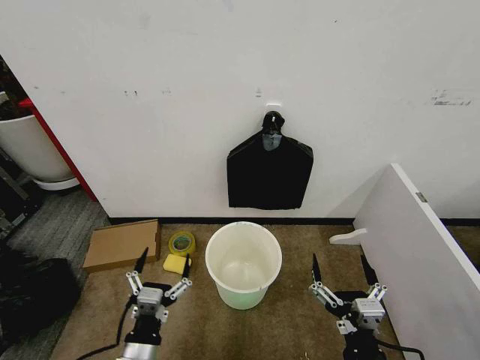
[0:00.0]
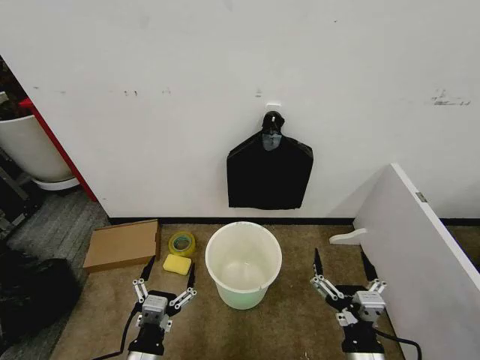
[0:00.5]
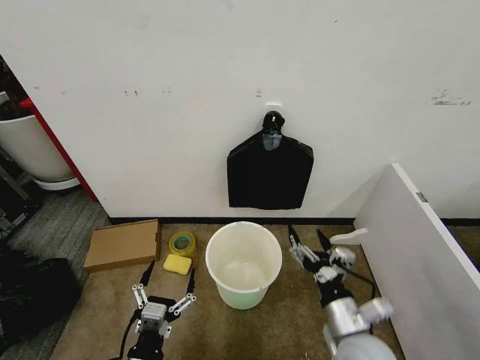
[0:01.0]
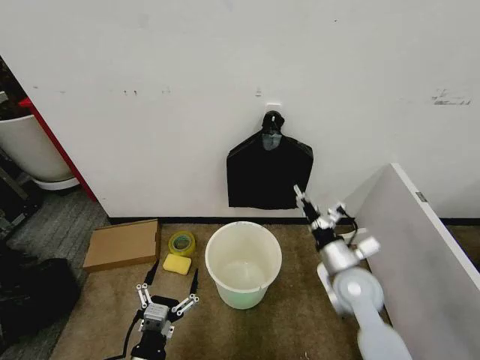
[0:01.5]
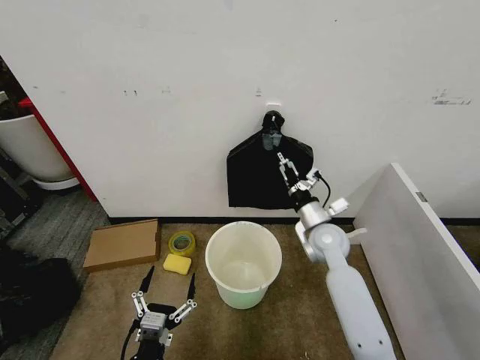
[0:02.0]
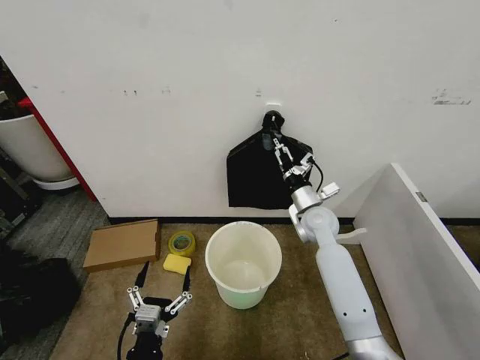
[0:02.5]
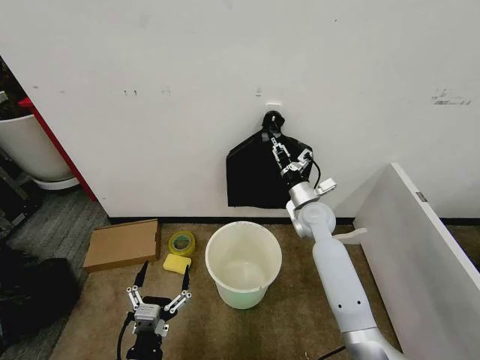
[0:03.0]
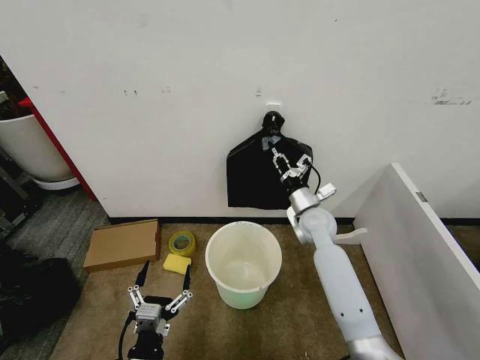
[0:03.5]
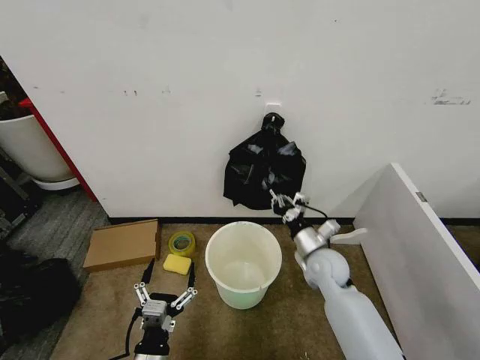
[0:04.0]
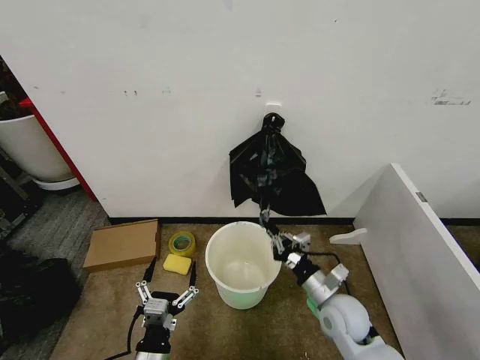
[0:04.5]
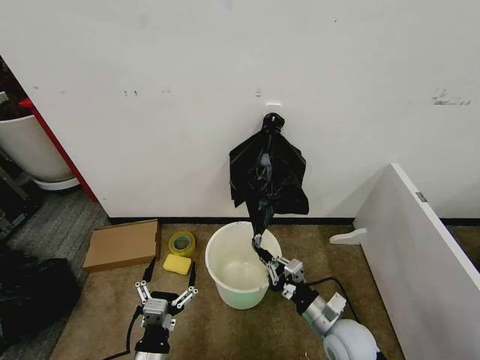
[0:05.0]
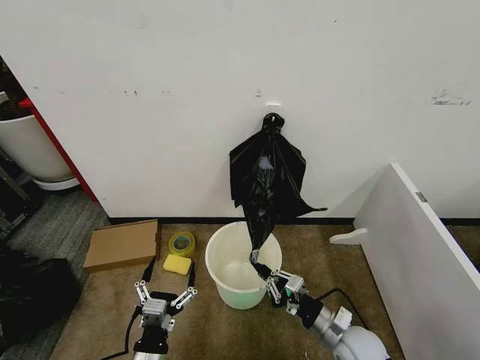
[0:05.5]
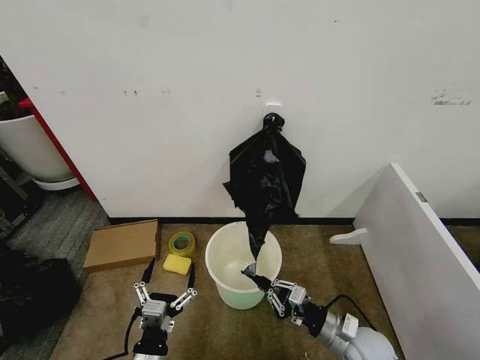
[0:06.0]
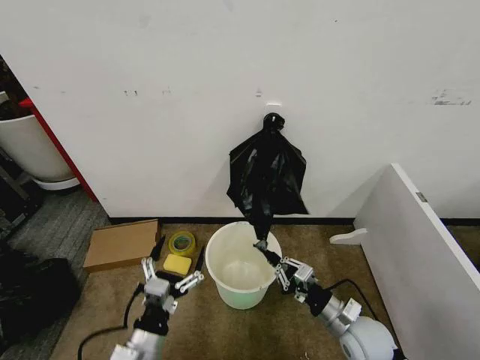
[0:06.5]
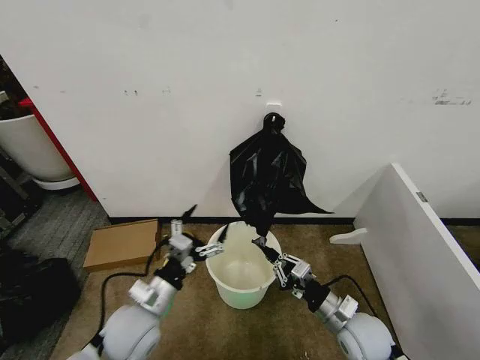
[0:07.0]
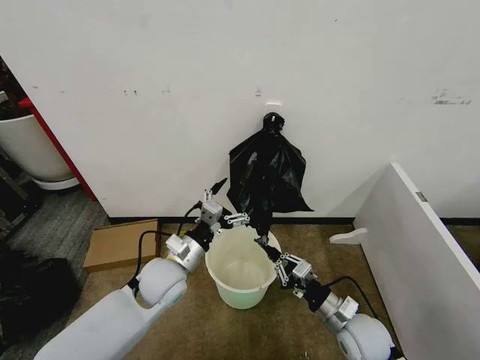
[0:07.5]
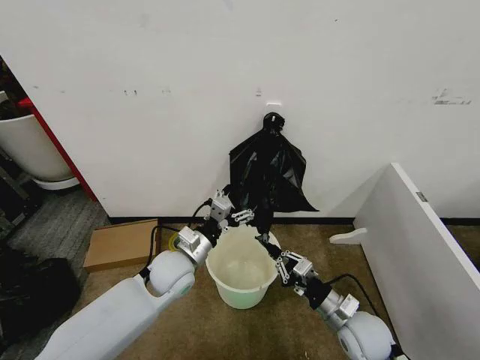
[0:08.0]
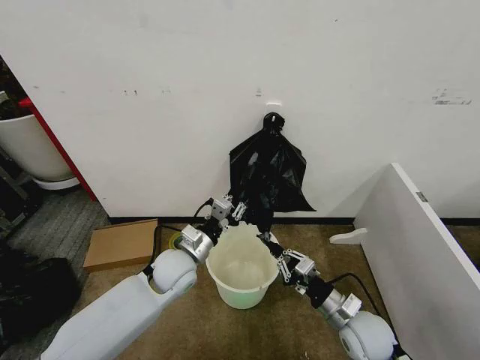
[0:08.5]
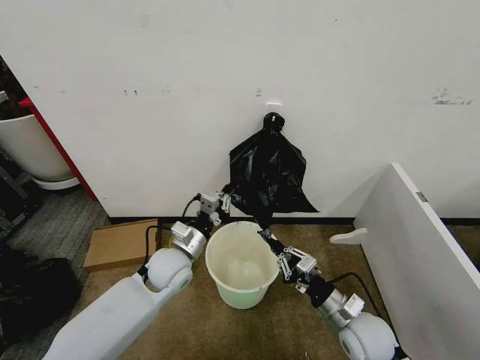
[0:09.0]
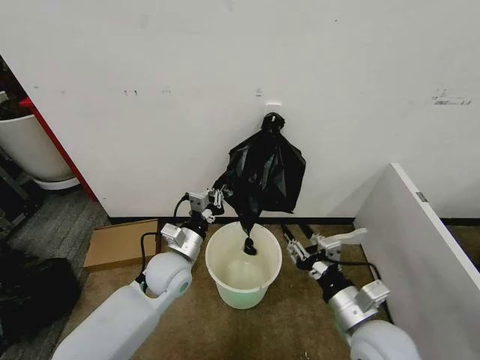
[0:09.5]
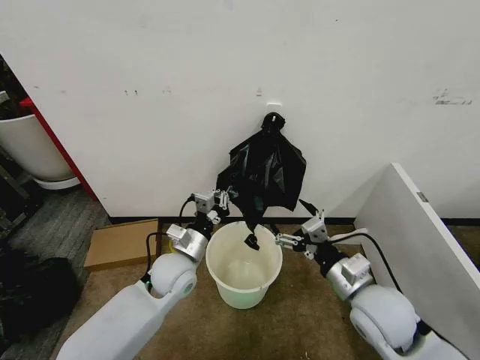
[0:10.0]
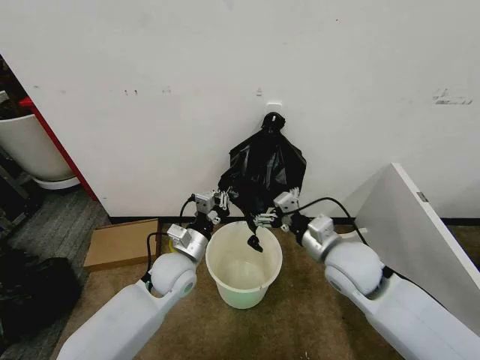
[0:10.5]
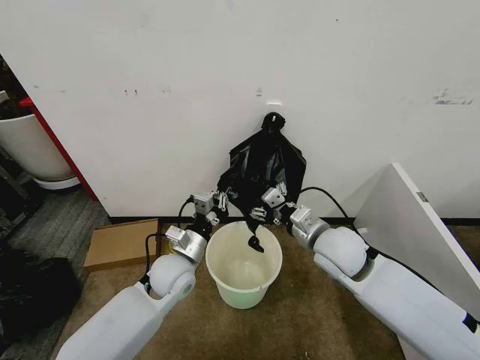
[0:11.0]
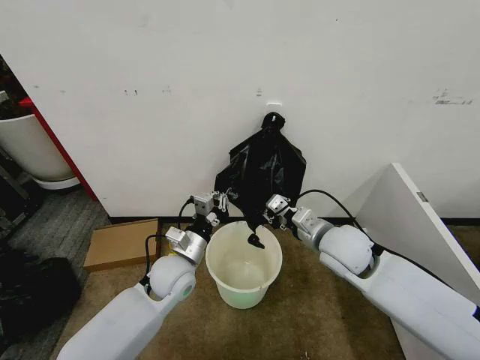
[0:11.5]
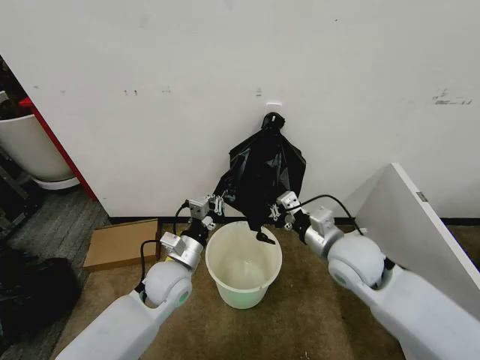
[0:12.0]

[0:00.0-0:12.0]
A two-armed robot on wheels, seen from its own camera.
Task of the whole recording: Place the garbage bag over the trash bin.
0:02.0 to 0:04.0: The right gripper moves downward, about 5 cm, and closes up.
0:04.0 to 0:06.0: The right gripper moves backward, roughly 15 cm.
0:06.0 to 0:08.0: The left gripper is displaced forward by approximately 25 cm.
0:08.0 to 0:10.0: The right gripper shifts roughly 10 cm upward, and opens, while the left gripper closes its fingers.
0:10.0 to 0:12.0: The right gripper is displaced forward by approximately 10 cm, and closes up.

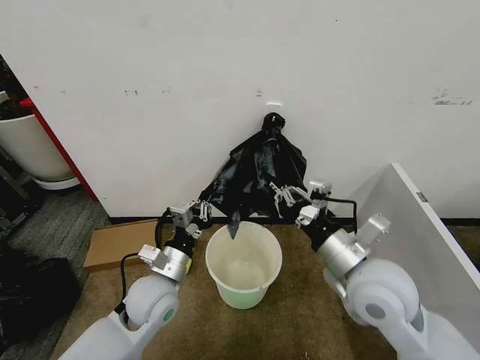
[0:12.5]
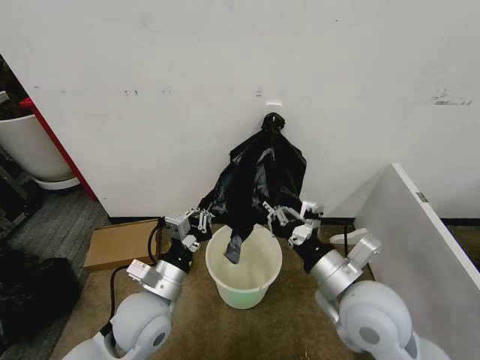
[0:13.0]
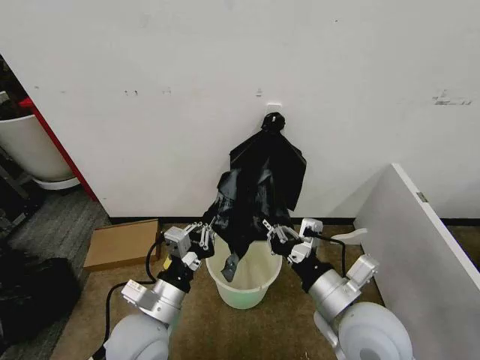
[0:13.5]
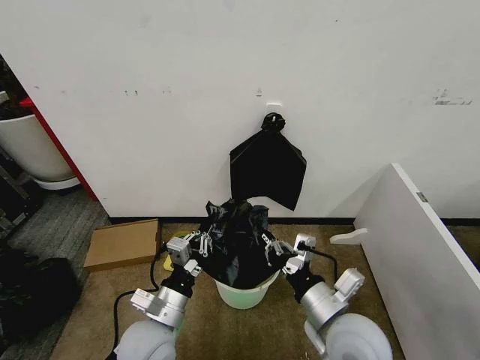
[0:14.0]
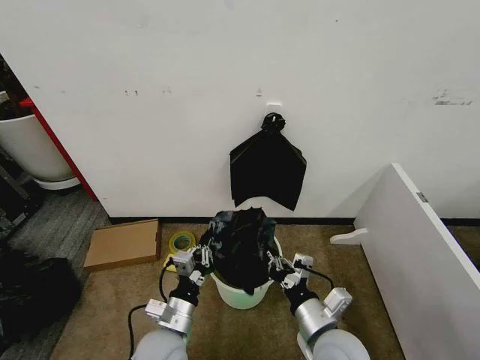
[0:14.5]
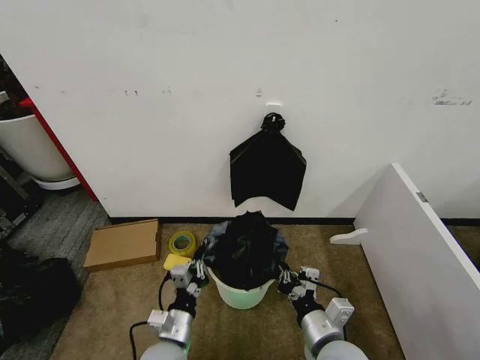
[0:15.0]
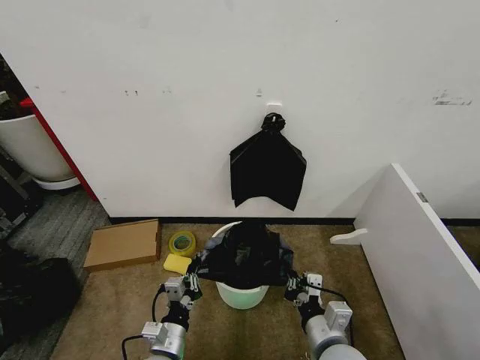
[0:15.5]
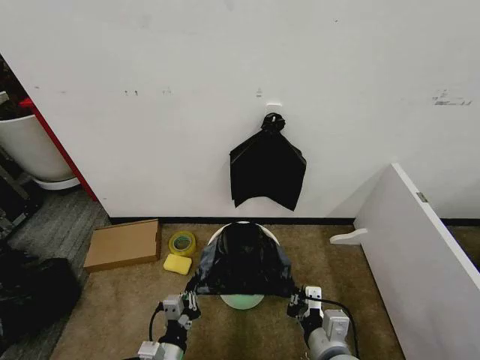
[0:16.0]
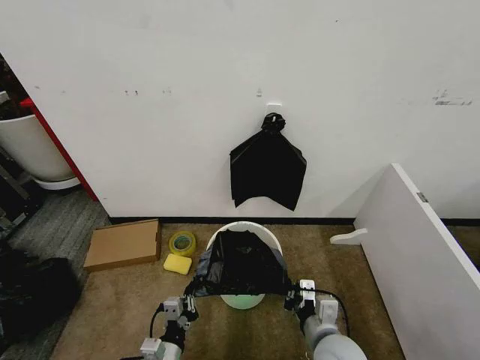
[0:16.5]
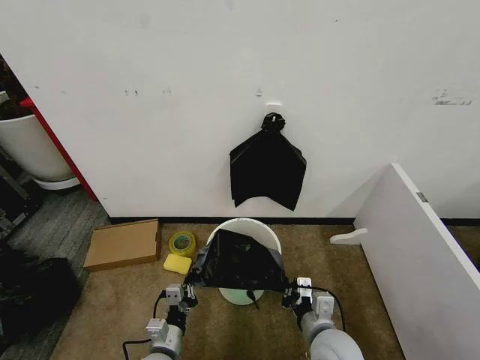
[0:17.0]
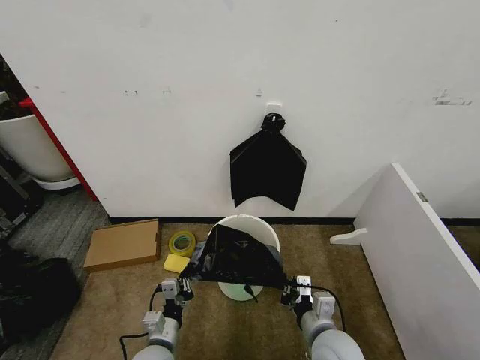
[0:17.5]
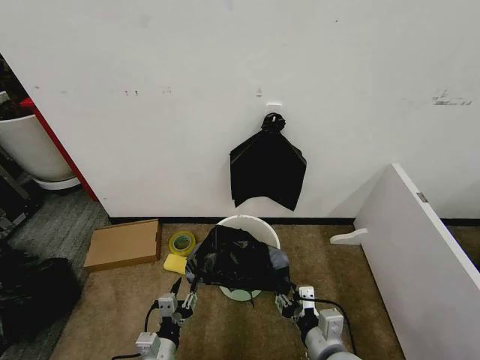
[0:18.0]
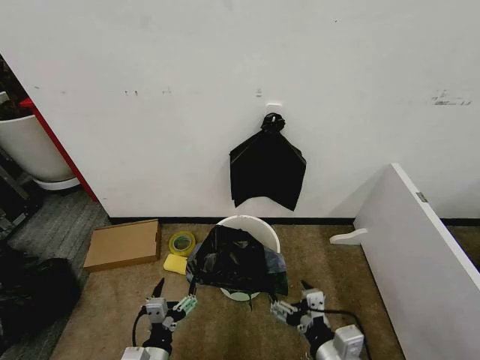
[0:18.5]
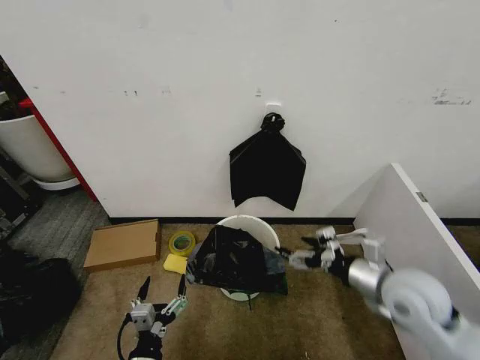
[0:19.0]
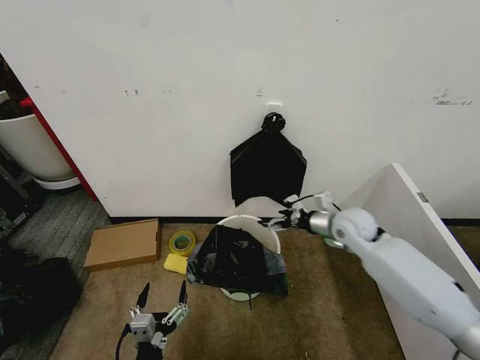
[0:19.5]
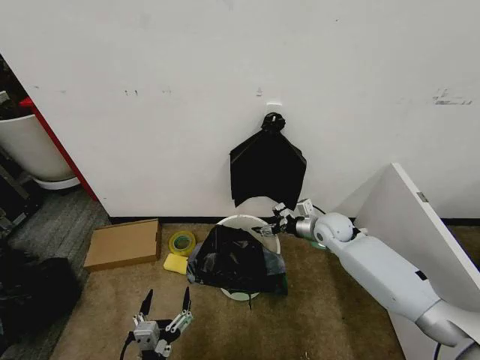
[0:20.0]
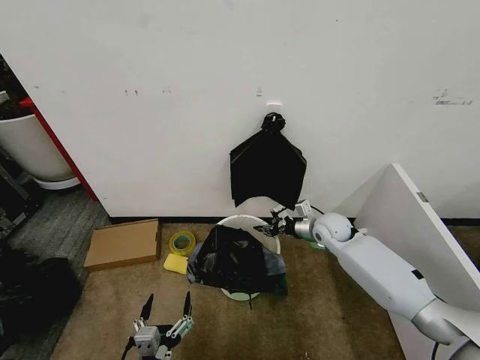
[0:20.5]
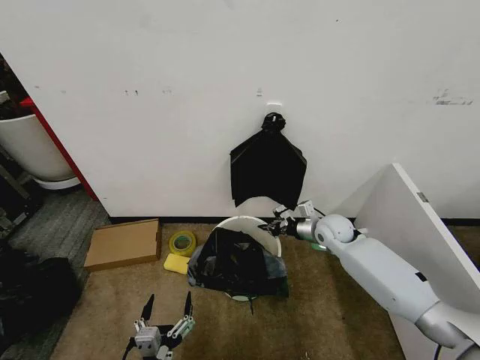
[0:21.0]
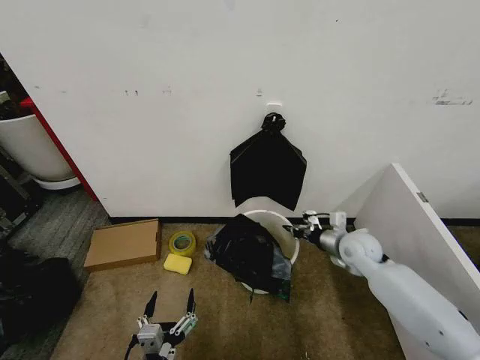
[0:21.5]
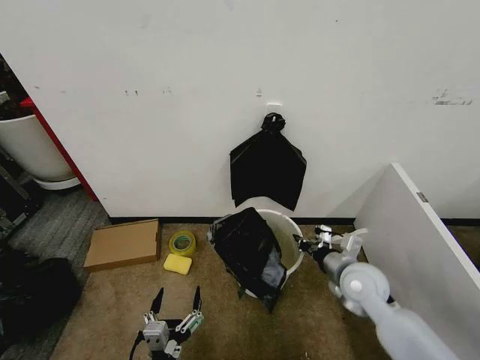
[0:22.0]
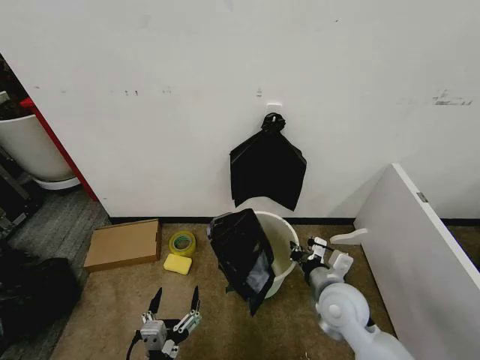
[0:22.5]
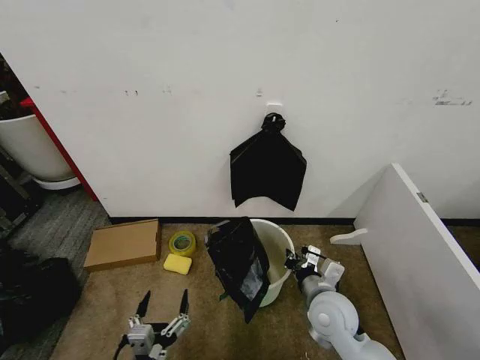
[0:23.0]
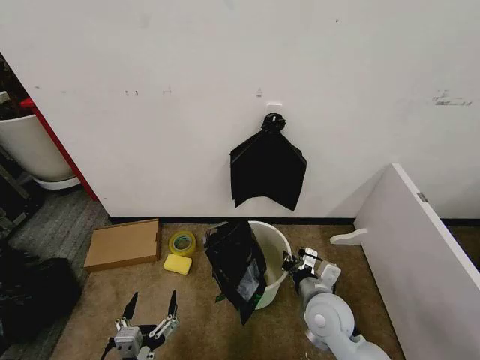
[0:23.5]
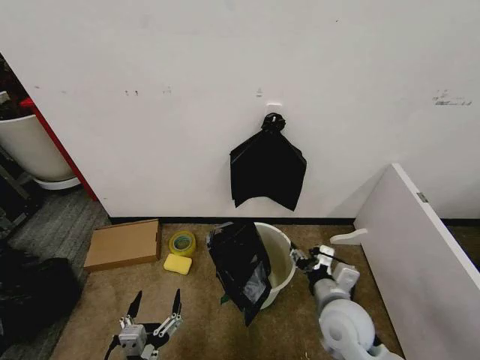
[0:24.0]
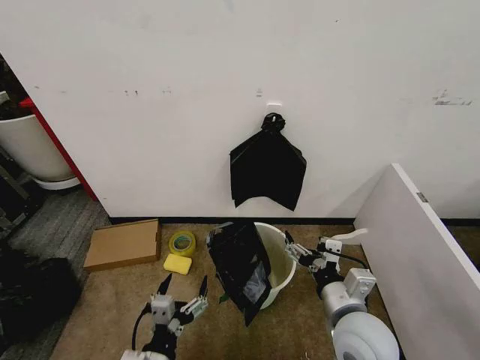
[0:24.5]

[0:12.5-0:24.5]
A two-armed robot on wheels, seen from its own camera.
Task of the whole recording: Place the garbage bag over the trash bin.
0:12.5 to 0:14.5: The left gripper goes roughly 10 cm backward and downward. Meanwhile the right gripper travels downward and backward by approximately 15 cm.
0:14.5 to 0:16.5: The left gripper is displaced downward and backward by approximately 10 cm.
0:16.5 to 0:18.5: The right gripper heads backward, covering roughly 5 cm, and opens its fingers; the left gripper opens its fingers.
0:18.5 to 0:20.5: The left gripper travels backward by roughly 5 cm. Meanwhile the right gripper heads forward, covering approximately 35 cm, and closes up.
0:20.5 to 0:22.5: The right gripper moves backward, approximately 20 cm.
0:22.5 to 0:24.5: The right gripper goes roughly 5 cm backward, and opens its fingers. Meanwhile the left gripper ends up approximately 5 cm from where it was.

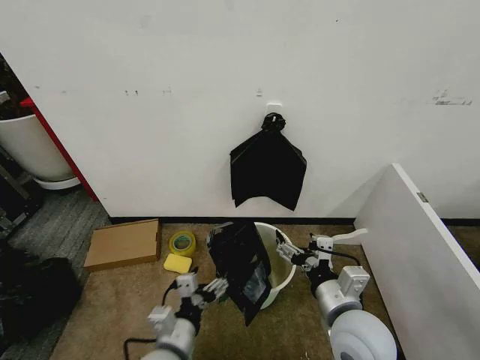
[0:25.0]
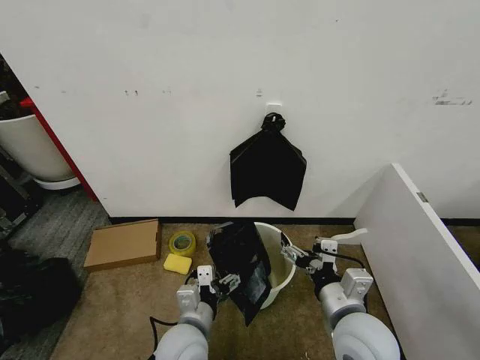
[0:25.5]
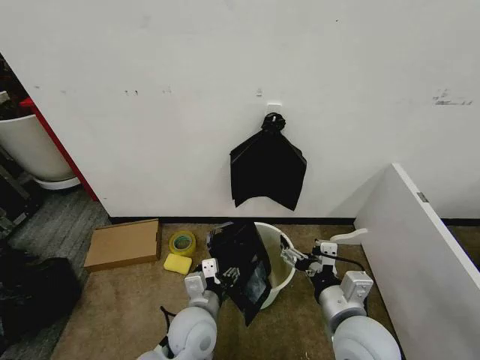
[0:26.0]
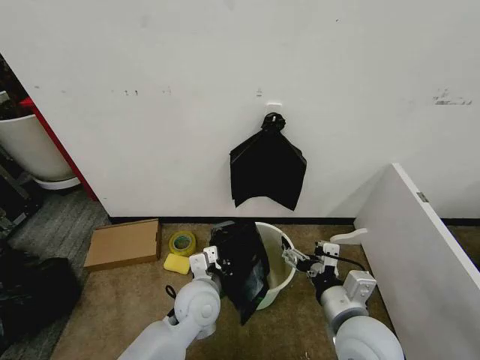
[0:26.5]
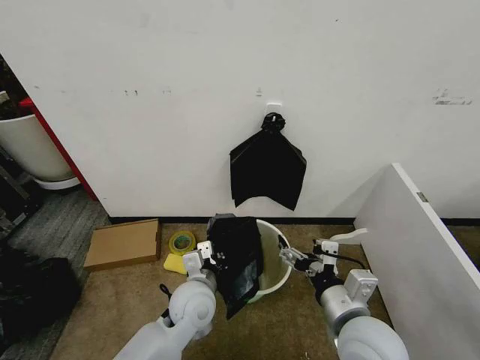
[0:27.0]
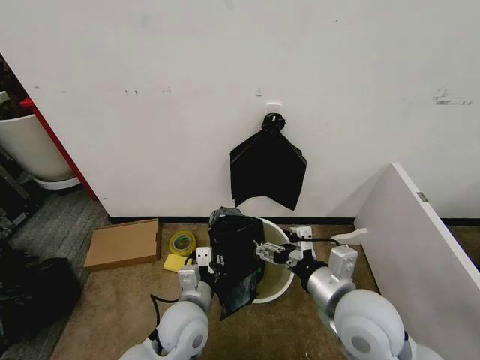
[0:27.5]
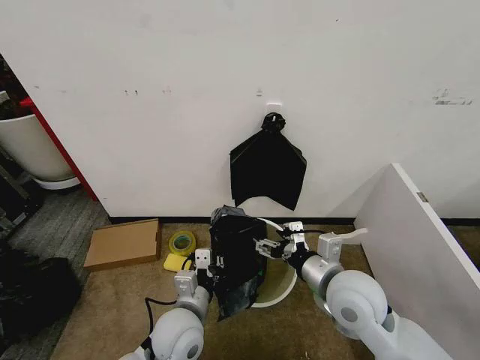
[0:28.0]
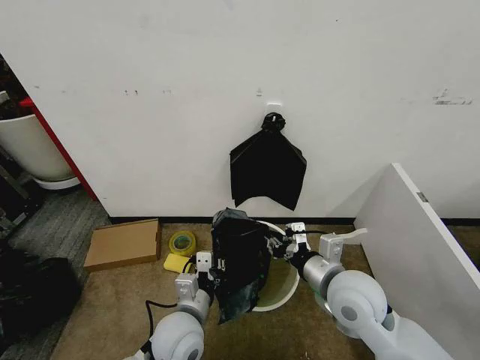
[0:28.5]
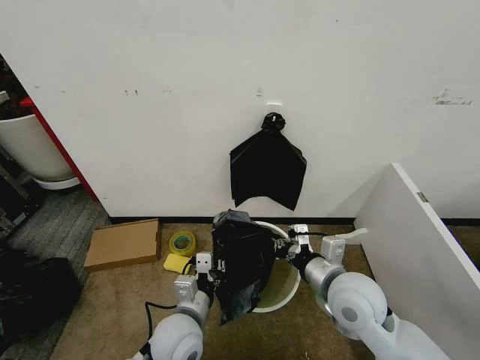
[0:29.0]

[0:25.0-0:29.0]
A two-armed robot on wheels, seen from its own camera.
Task of the whole recording: Place the garbage bag over the trash bin.
0:25.0 to 0:27.0: The left gripper heads forward, covering some 15 cm, and closes up.
0:27.0 to 0:29.0: The right gripper heads forward, covering approximately 10 cm, and closes up; the left gripper goes roughly 5 cm backward.
